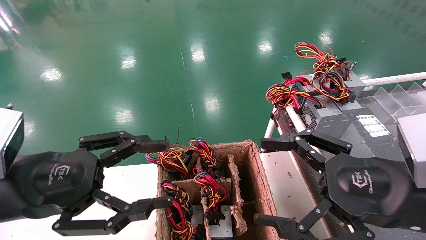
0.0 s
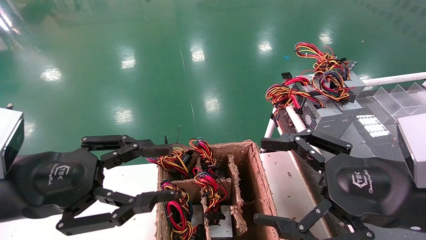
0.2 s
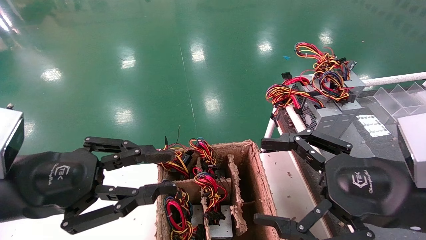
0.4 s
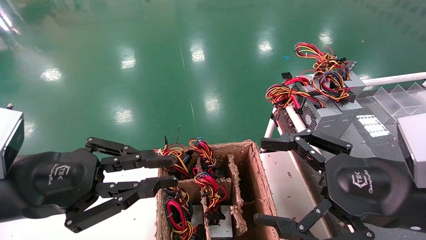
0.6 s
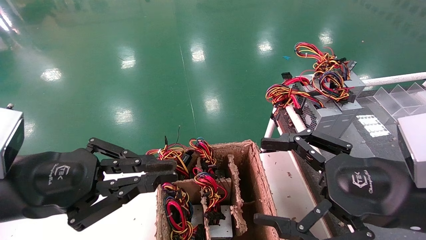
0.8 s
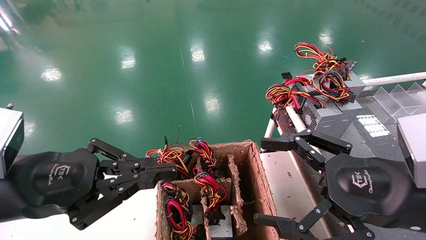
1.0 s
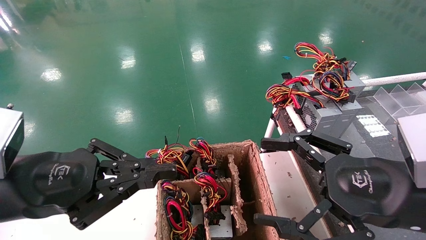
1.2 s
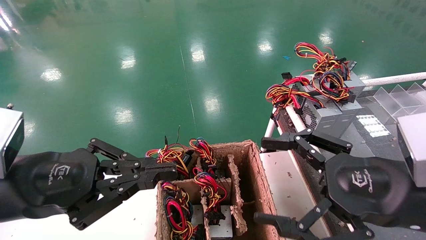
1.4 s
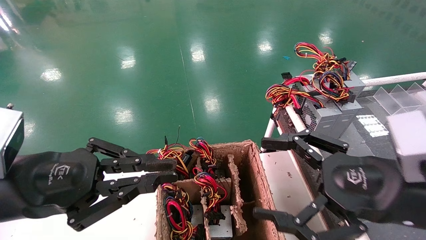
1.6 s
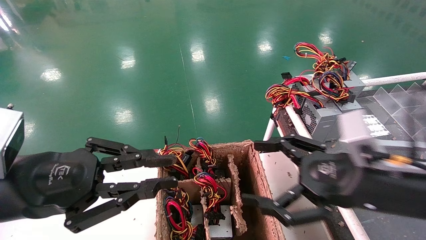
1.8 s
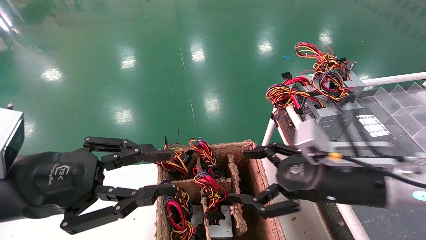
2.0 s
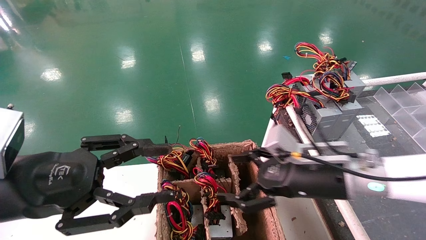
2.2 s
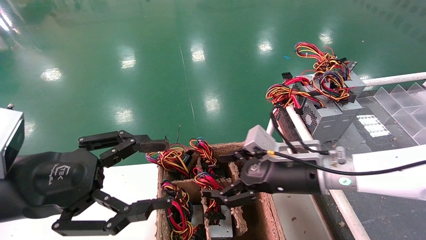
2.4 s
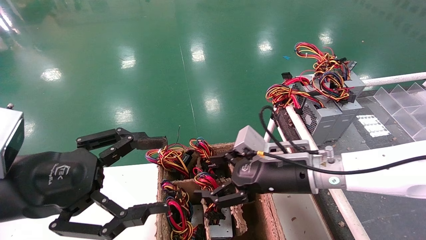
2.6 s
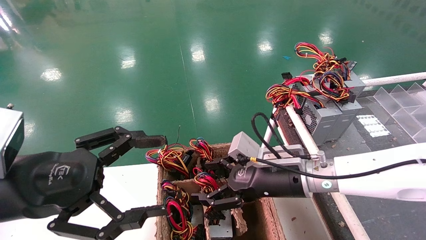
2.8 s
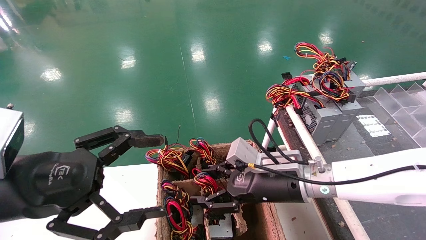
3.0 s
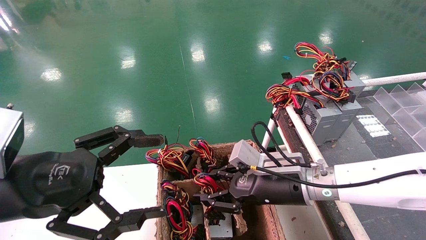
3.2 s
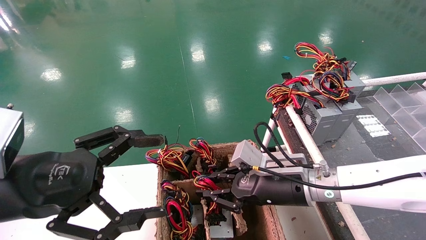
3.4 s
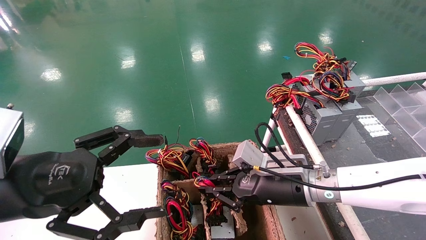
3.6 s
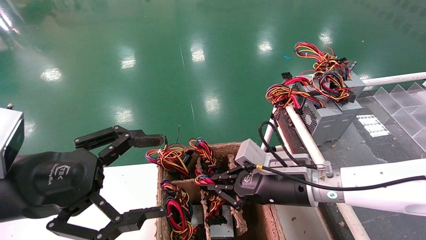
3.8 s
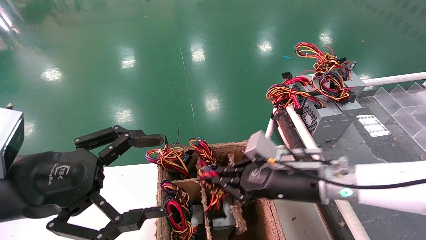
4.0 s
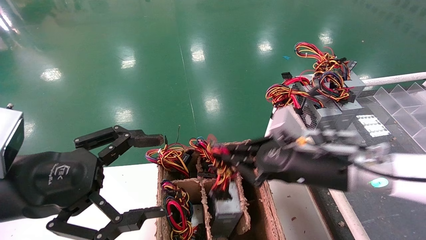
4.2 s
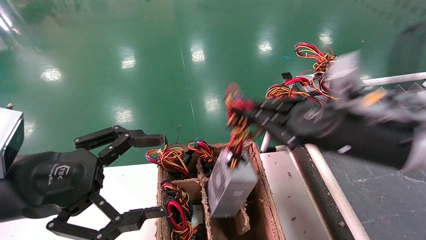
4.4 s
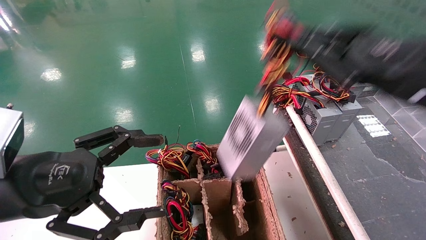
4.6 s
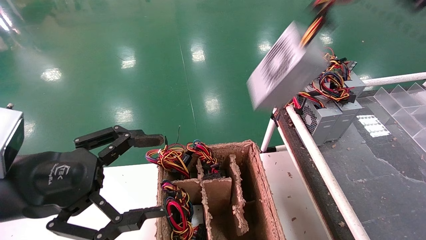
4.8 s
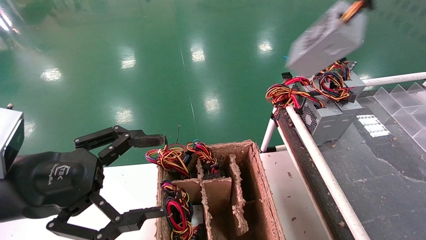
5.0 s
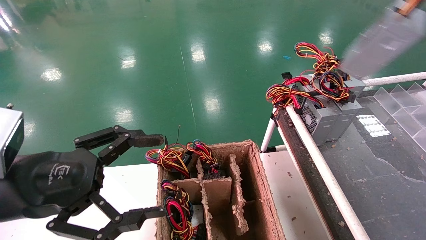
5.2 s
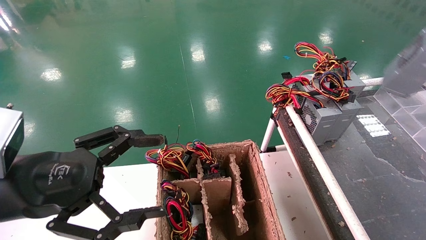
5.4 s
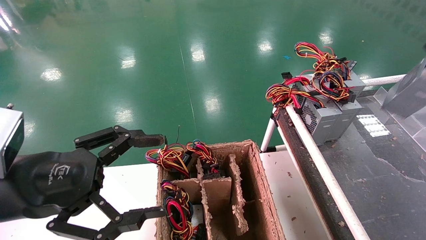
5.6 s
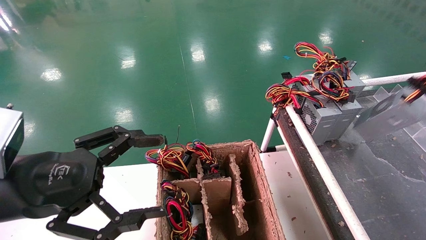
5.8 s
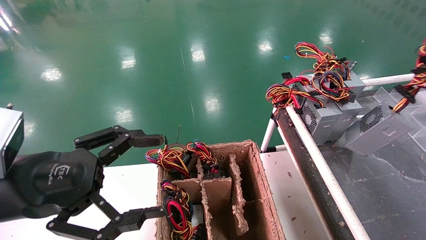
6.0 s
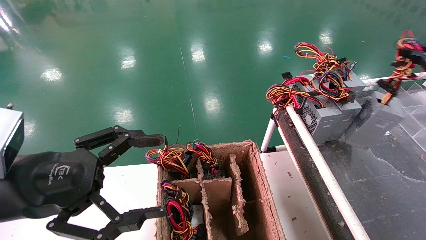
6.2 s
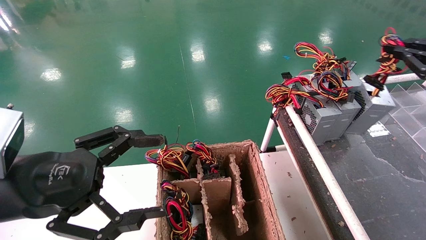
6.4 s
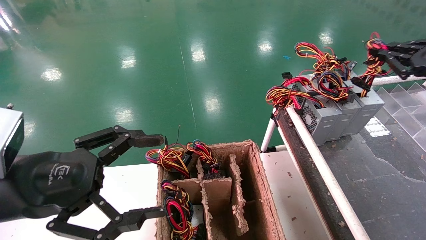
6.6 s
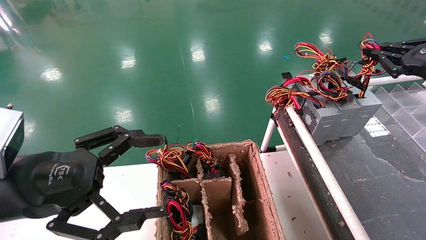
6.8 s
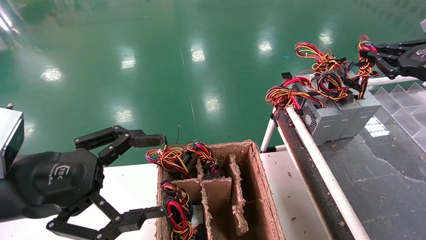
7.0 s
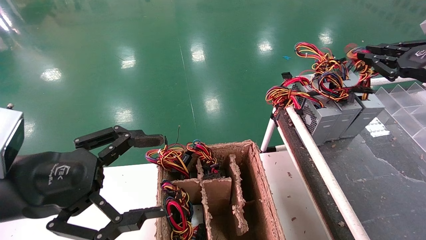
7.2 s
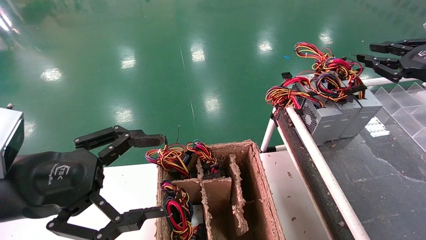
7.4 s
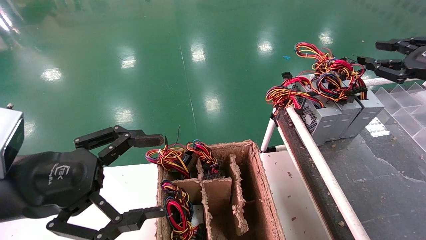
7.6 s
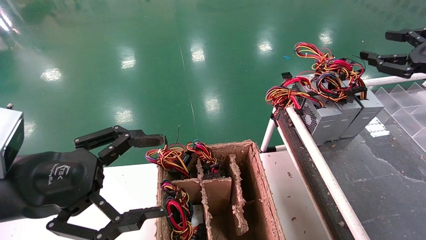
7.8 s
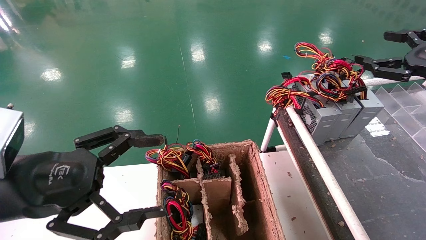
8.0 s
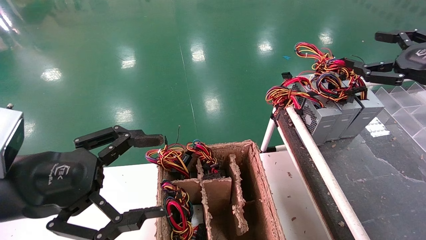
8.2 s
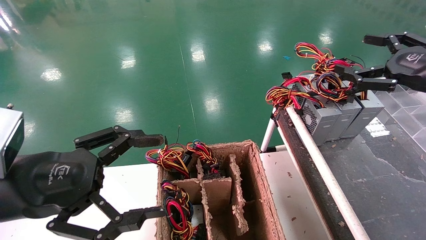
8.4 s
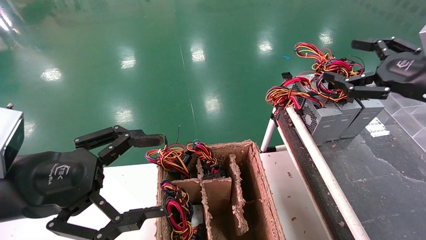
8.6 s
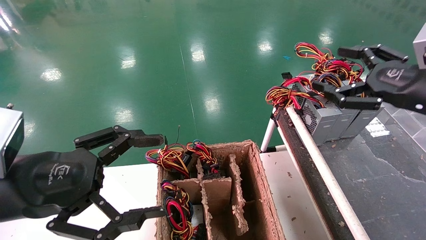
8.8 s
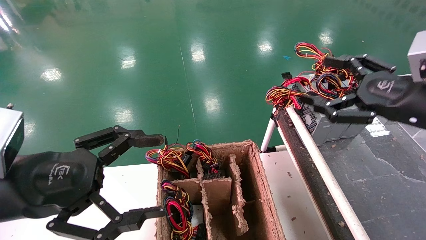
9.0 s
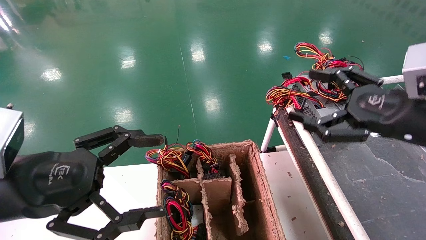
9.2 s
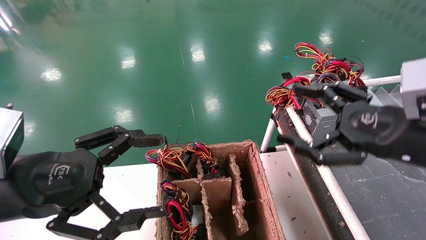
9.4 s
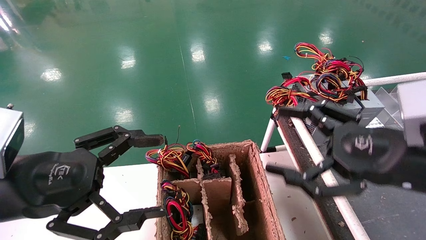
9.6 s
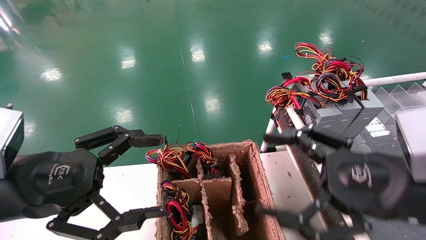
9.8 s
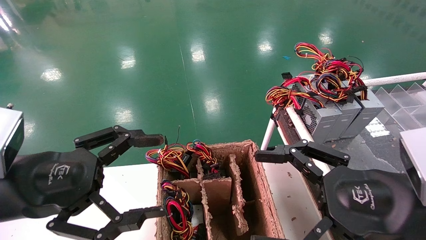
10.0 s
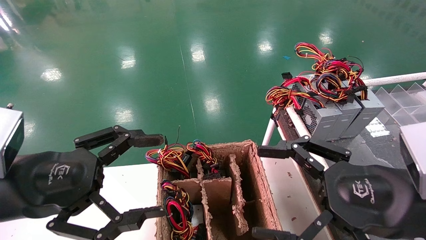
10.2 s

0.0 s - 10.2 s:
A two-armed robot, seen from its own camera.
Step, 1.8 s - 3.8 s: Grab and lift the power supply from the large box.
Step, 4.0 s - 7.6 s: Place the power supply on the operating table.
0.0 s - 1.4 s: The left gripper closes.
1.4 s - 3.0 s: The left gripper opens, while the right gripper moves forward, to the left and downward, about 20 cm.
3.0 s - 4.4 s: The right gripper goes approximately 15 cm upward, to the right and backward, and closes its fingers.
4.4 s - 5.8 s: The right gripper goes some 25 cm to the right.
5.8 s - 7.2 s: The right gripper is displaced forward and to the left by some 10 cm.
7.2 s - 8.8 s: The right gripper shifts some 10 cm to the left and backward, and opens its fingers.
8.8 s - 10.2 s: The right gripper moves backward, to the left and downward, some 20 cm.

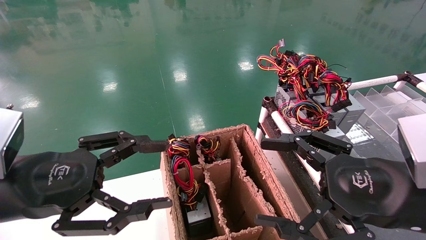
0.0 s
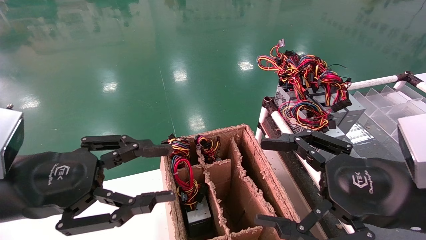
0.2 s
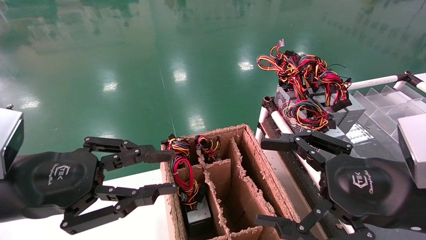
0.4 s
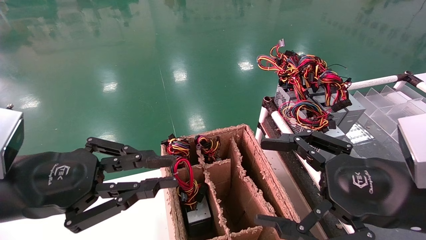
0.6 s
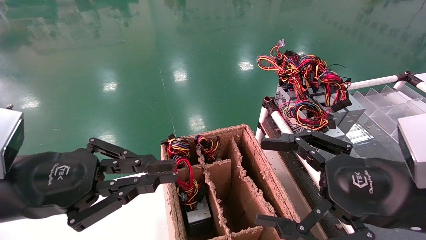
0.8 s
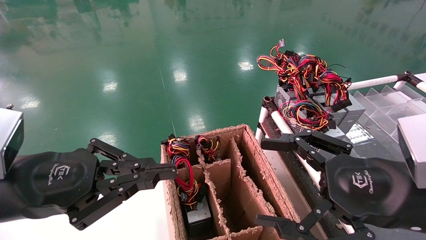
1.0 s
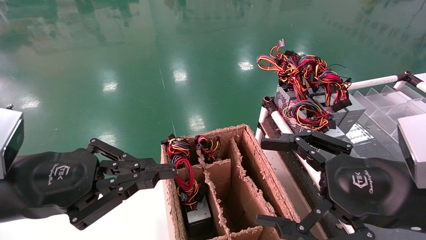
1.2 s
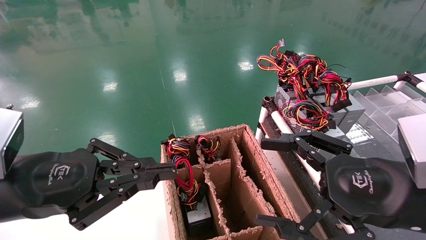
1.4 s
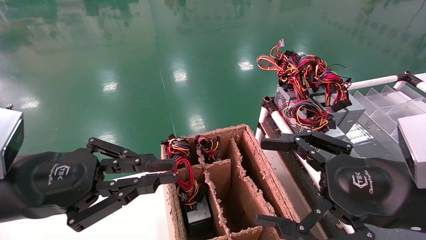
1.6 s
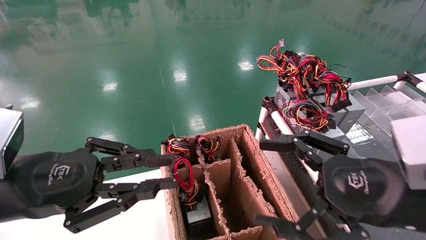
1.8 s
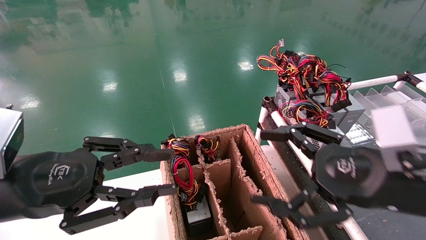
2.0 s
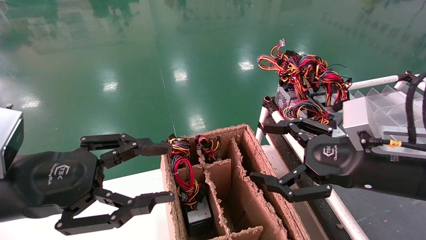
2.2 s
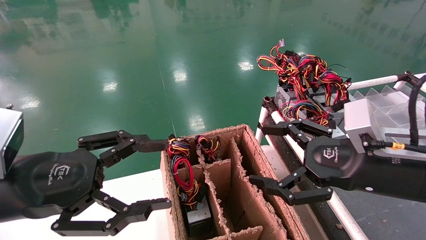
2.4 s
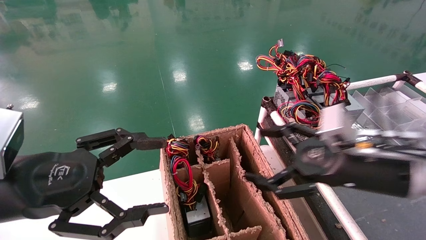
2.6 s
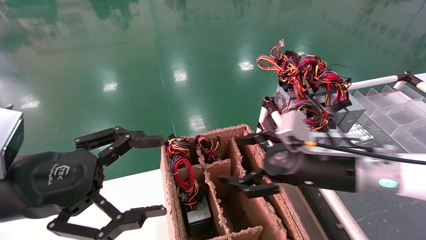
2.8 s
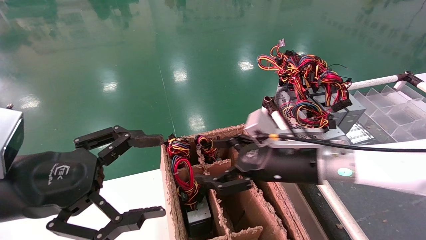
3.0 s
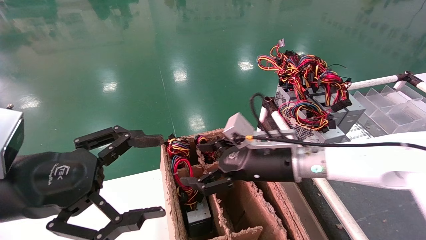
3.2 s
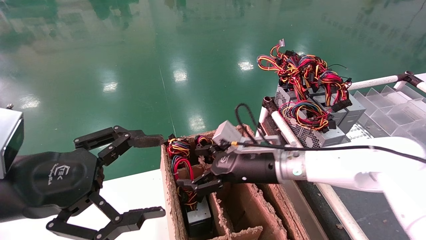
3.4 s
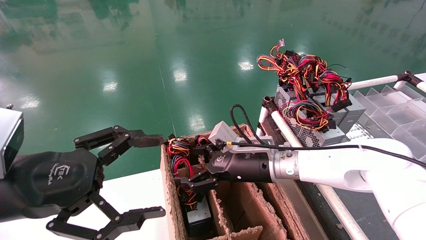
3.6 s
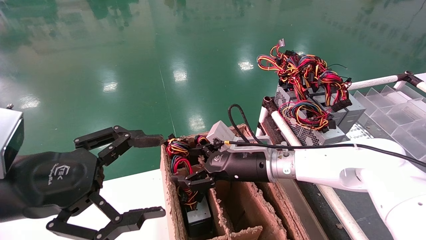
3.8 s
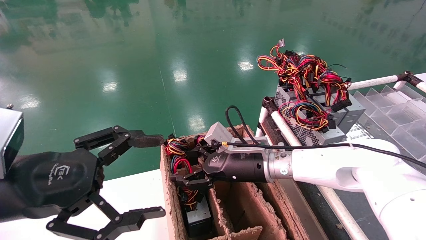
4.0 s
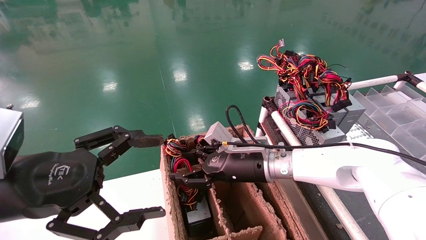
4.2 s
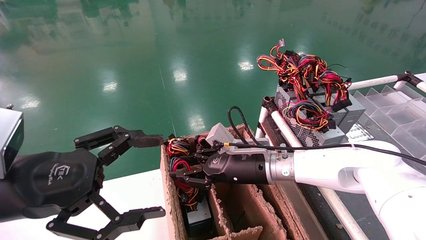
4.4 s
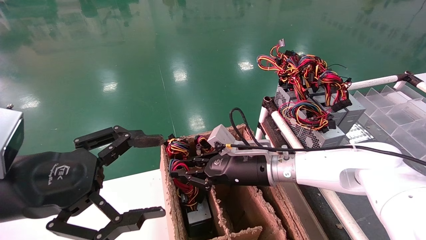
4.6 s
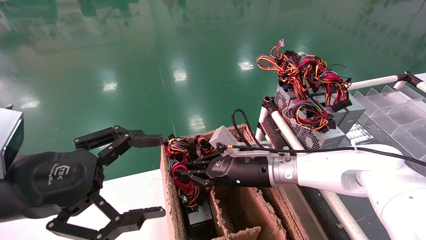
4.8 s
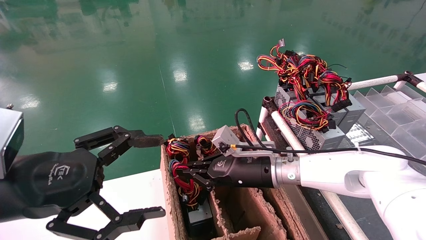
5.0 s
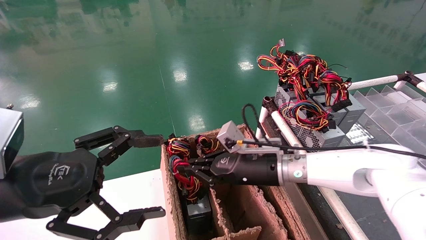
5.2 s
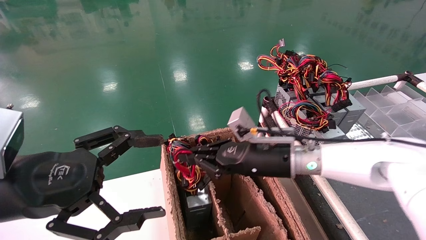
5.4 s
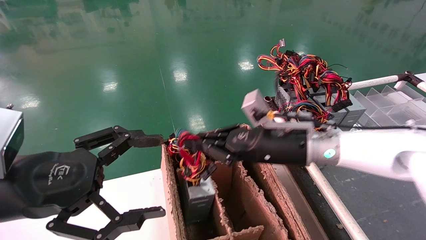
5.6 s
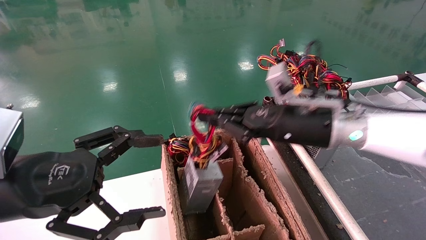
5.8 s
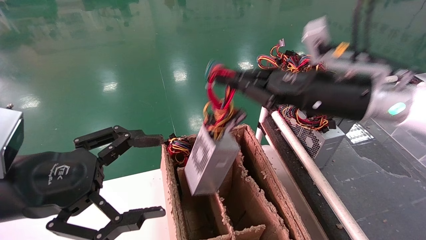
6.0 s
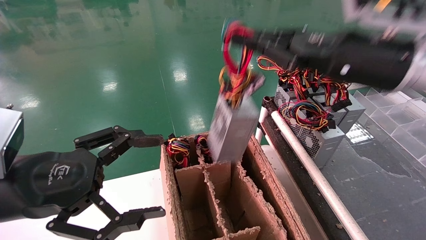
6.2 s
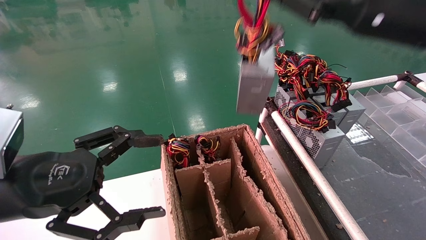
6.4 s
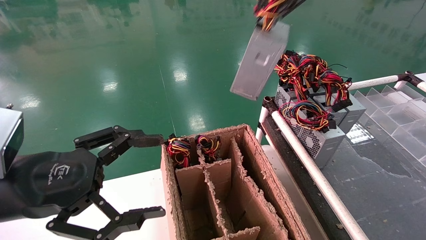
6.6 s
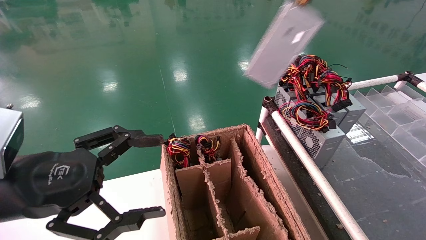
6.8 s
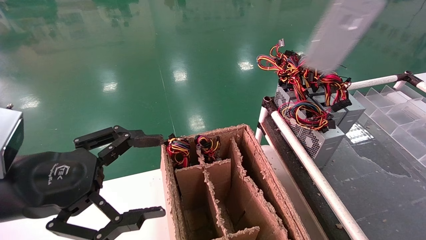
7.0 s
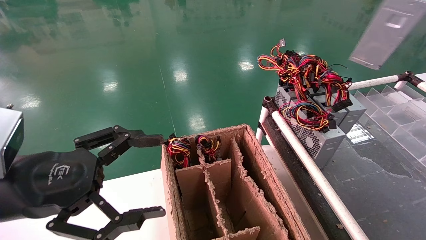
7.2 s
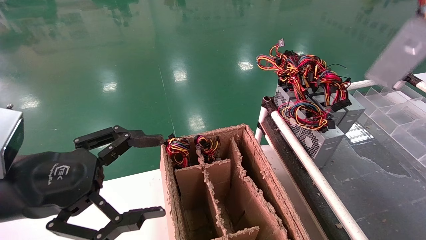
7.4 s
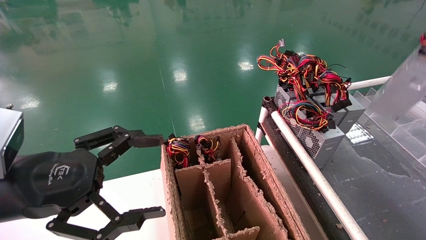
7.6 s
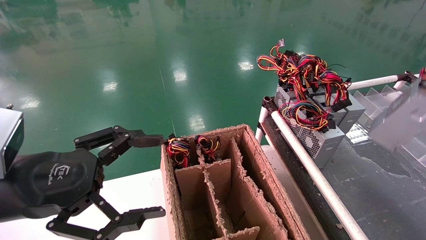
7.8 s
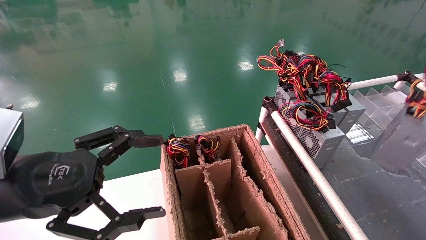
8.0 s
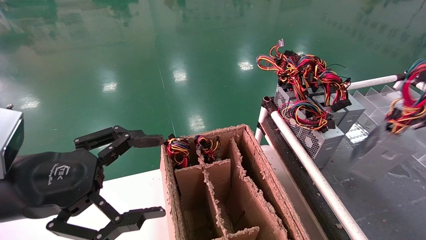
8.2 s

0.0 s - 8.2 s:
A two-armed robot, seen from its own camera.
Step, 1.0 s - 5.0 s: Grab and lift the power supply from the large box.
0.0 s - 1.6 s: The left gripper closes its fingers.
1.6 s - 3.2 s: The left gripper opens up, while the right gripper moves forward and to the left, roughly 20 cm.
3.2 s - 5.0 s: The right gripper changes place by approximately 5 cm, and closes up.
5.0 s - 6.6 s: The right gripper is displaced upward and to the right by approximately 35 cm.
6.6 s - 8.2 s: The right gripper moves to the right and downward, approximately 25 cm.
